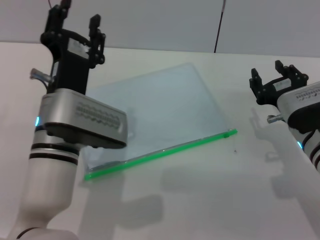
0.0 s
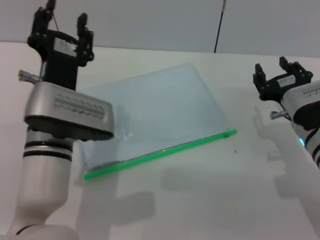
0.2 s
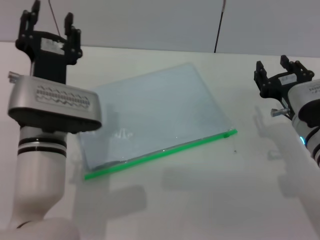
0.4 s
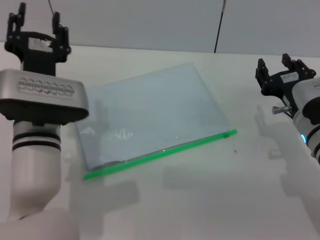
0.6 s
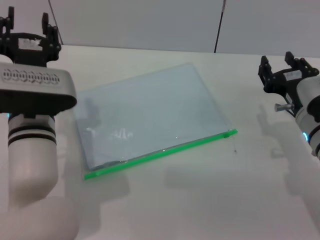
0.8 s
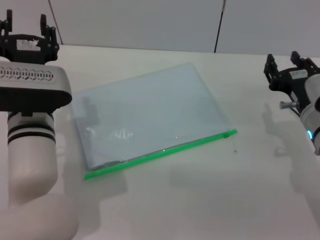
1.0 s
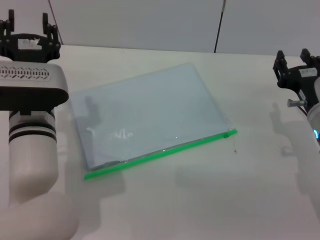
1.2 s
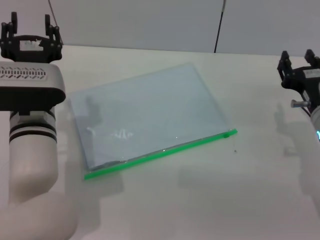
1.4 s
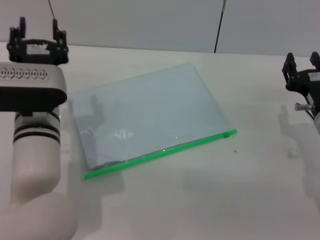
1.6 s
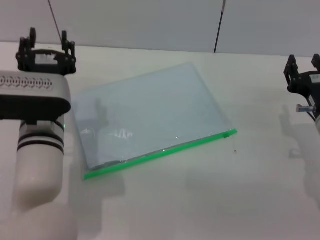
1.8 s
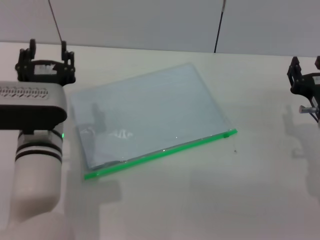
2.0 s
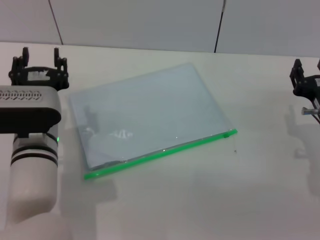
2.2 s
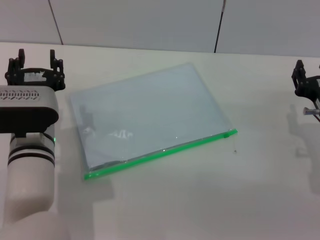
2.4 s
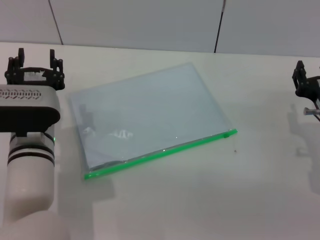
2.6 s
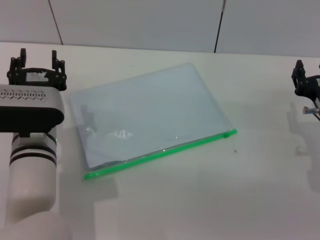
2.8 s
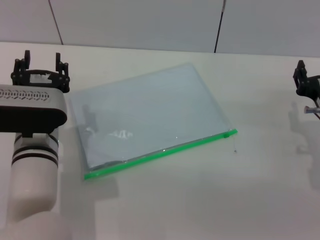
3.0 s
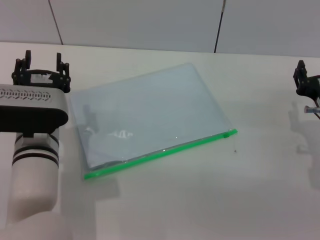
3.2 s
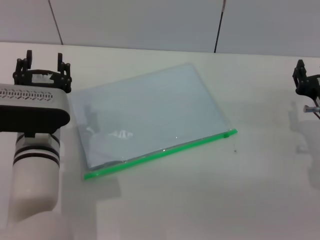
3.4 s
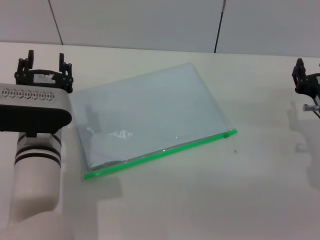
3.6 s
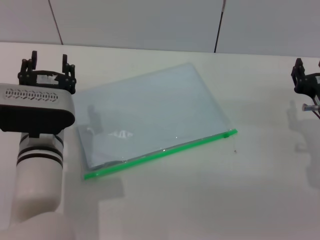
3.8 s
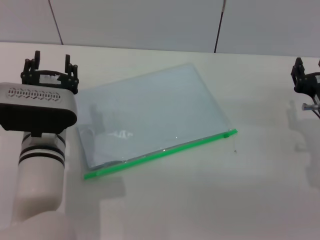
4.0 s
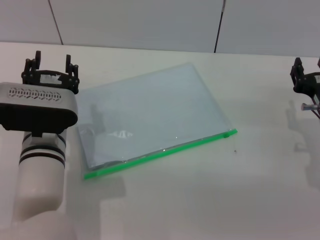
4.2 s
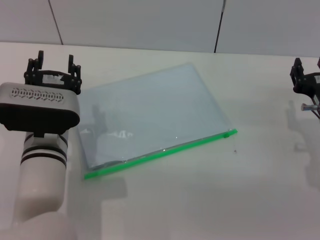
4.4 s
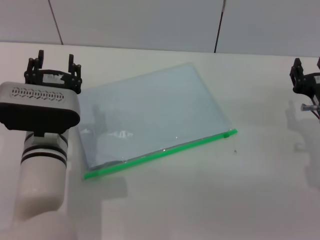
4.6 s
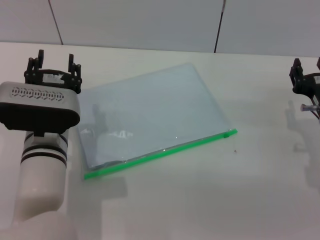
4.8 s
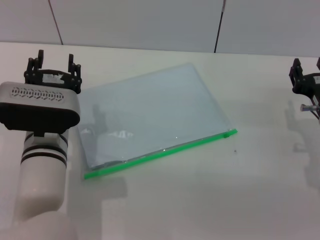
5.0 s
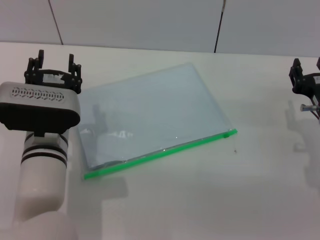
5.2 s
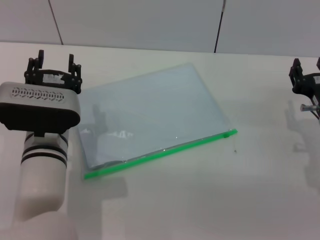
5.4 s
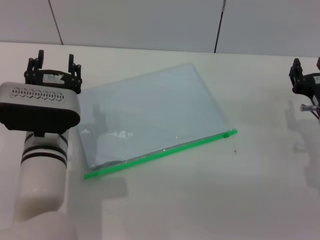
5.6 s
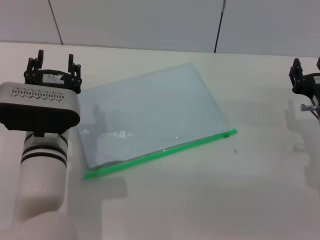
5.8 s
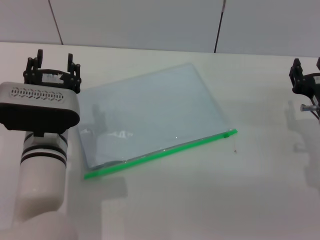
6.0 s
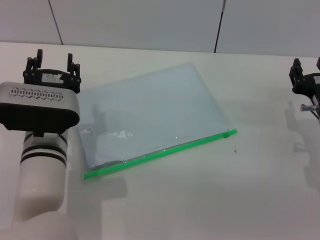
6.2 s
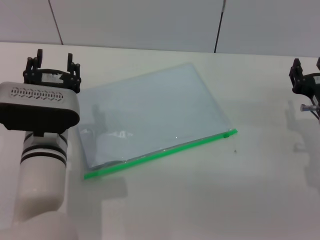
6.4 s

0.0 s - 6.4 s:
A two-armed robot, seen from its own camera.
1.6 s - 3.2 s: The grippers make only small movements.
3.2 s - 6.4 s: The two grippers keep their place.
